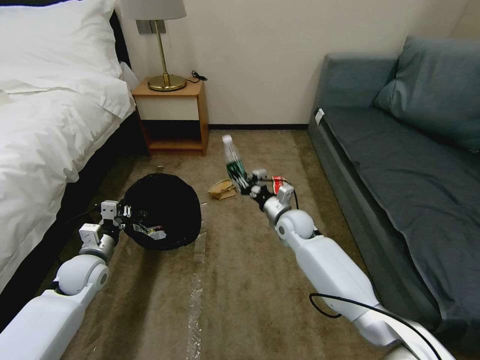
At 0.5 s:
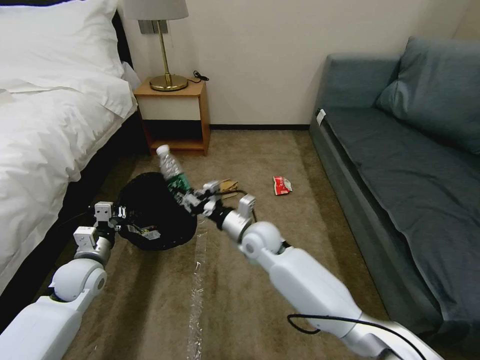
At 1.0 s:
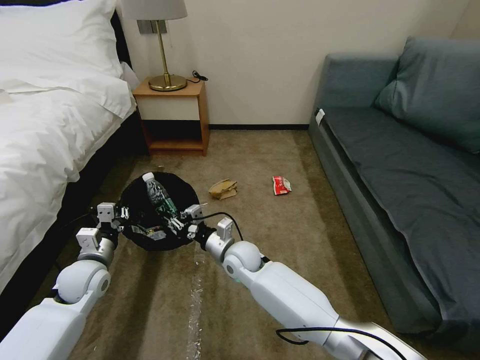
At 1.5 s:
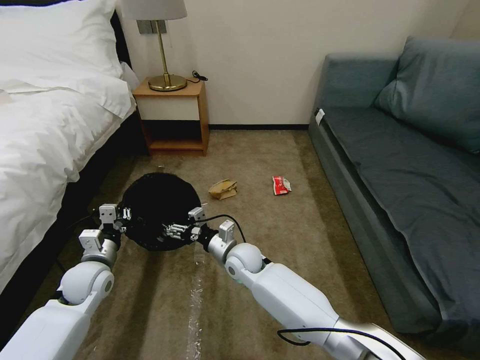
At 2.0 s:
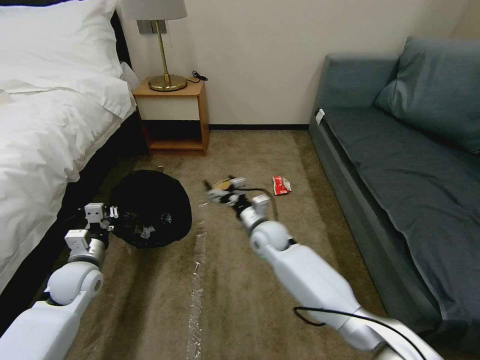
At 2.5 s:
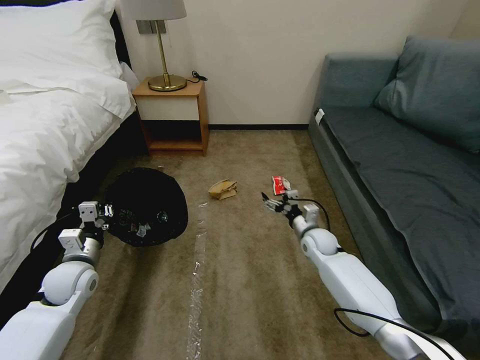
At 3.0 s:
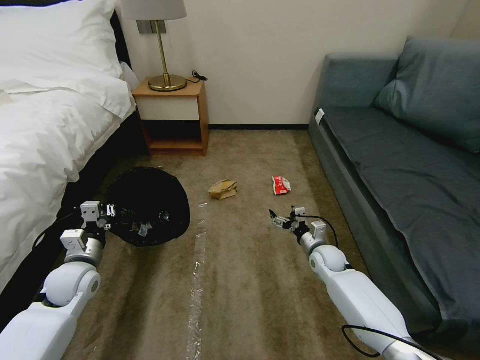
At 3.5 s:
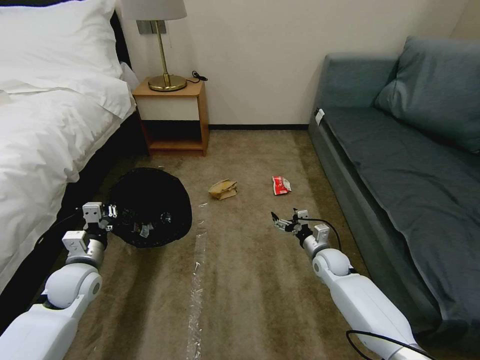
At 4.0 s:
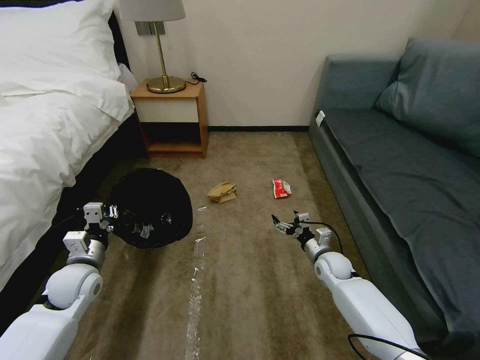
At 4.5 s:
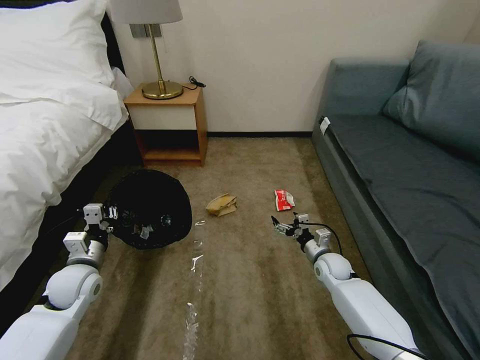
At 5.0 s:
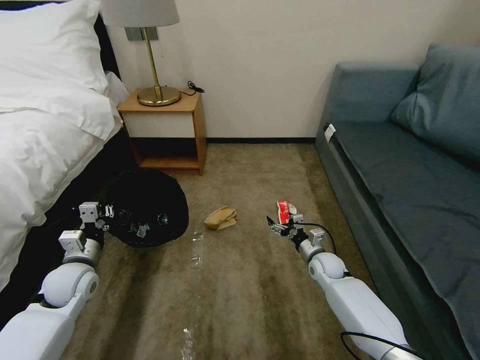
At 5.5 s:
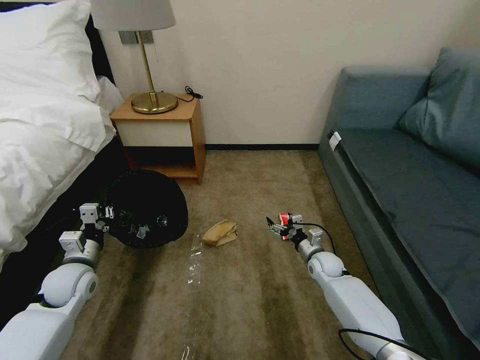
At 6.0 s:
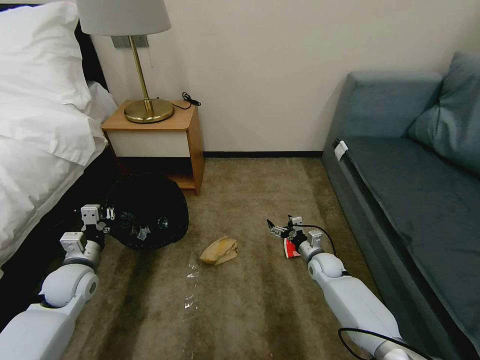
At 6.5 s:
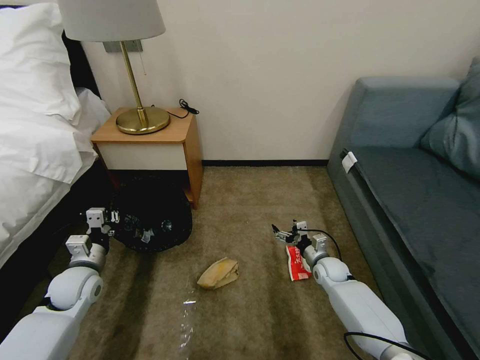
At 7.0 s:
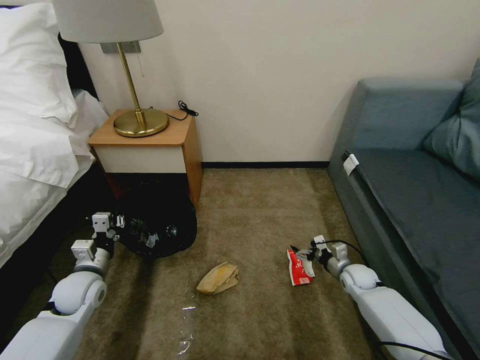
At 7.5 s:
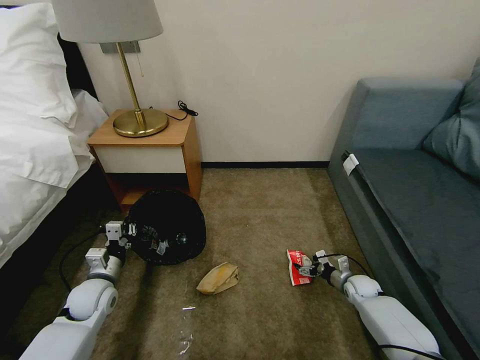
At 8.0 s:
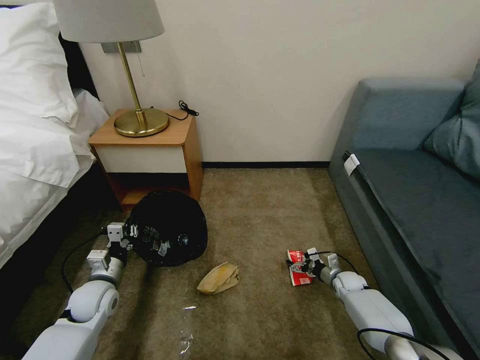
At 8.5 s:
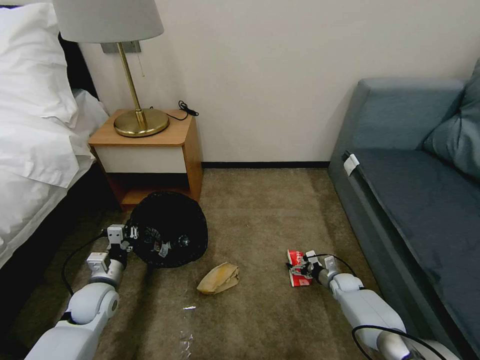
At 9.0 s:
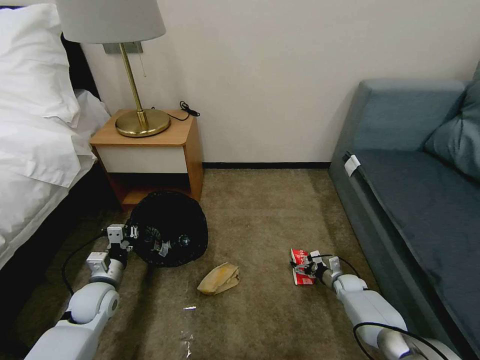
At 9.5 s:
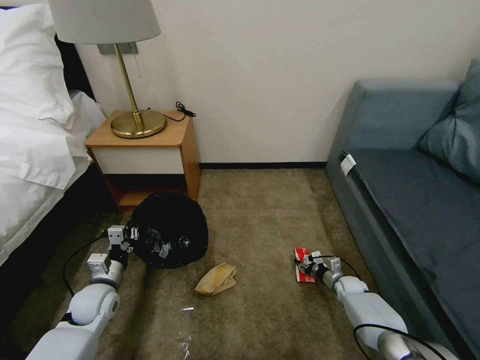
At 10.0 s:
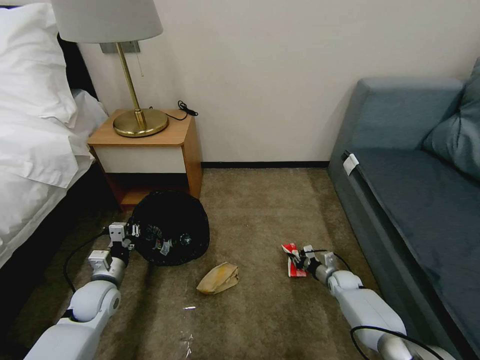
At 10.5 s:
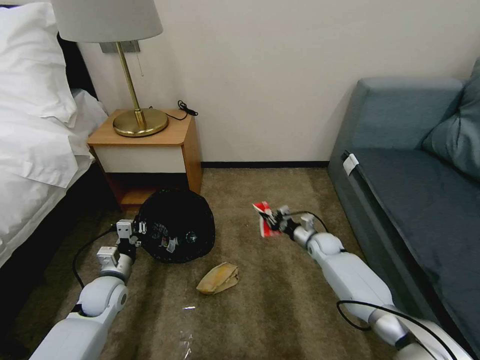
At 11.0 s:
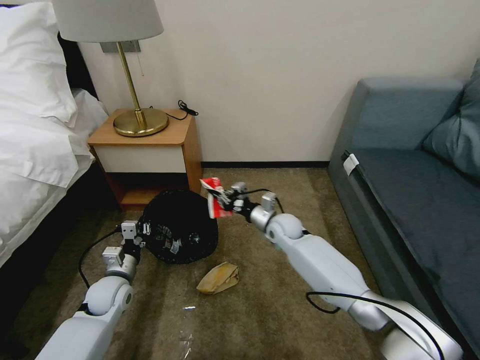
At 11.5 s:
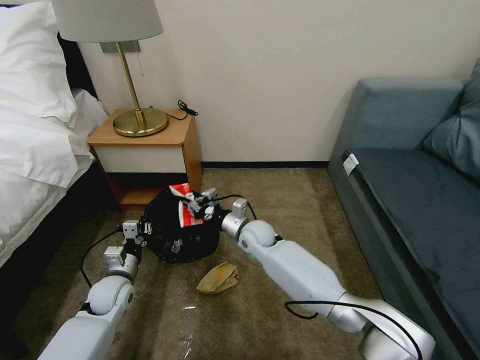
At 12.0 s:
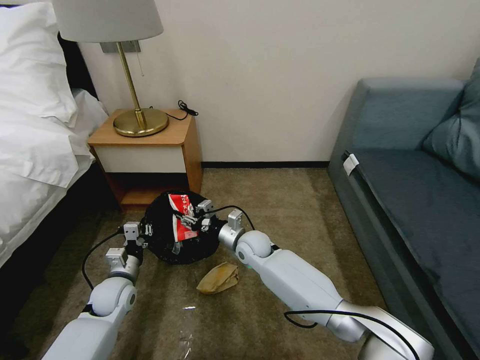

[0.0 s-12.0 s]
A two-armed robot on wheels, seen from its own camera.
Task of the whole recording: Pick up the trash bin, then pick up the garbage on the floor and place it into the trash bin.
0.0 to 2.0 s: The right gripper is displaced to the left by roughly 10 cm, and opens its fingers.
2.0 to 4.0 s: The right gripper shifts approximately 25 cm to the right and downward.
6.0 to 8.0 s: The left gripper moves downward, roughly 5 cm. Meanwhile the right gripper heads to the right and downward, covering roughly 10 cm.
8.0 to 10.0 s: The right gripper closes up.
10.0 to 12.0 s: The right gripper is displaced to the left and upward by approximately 35 cm.

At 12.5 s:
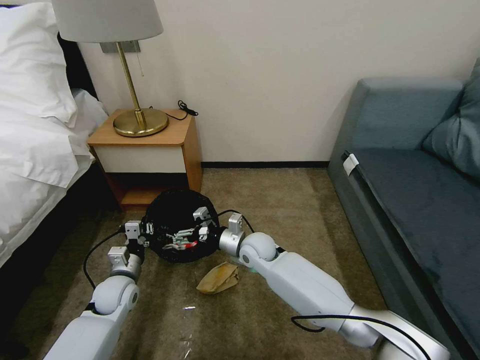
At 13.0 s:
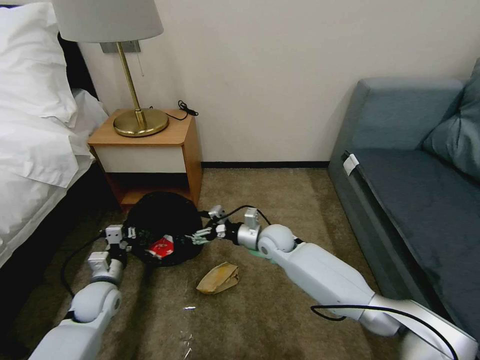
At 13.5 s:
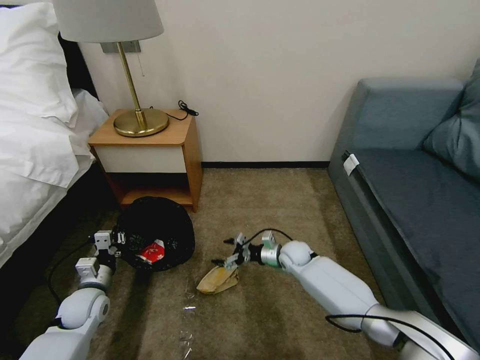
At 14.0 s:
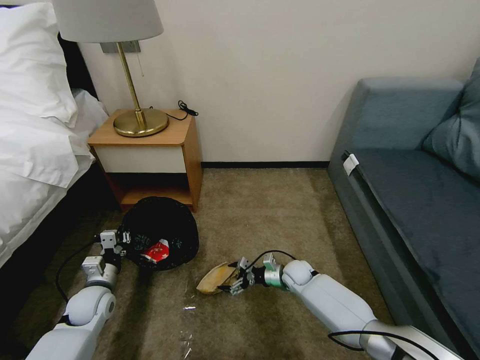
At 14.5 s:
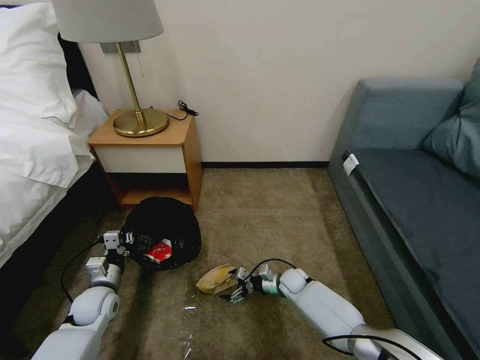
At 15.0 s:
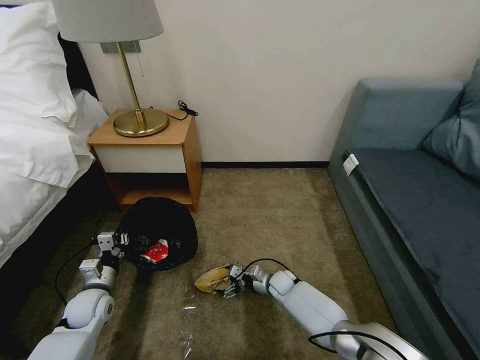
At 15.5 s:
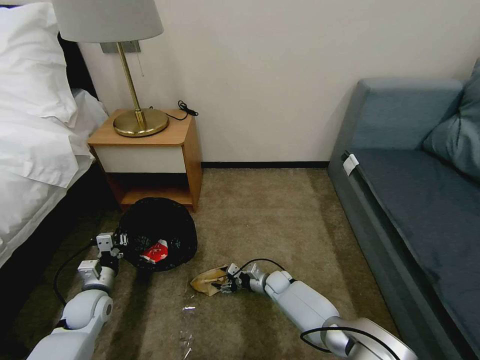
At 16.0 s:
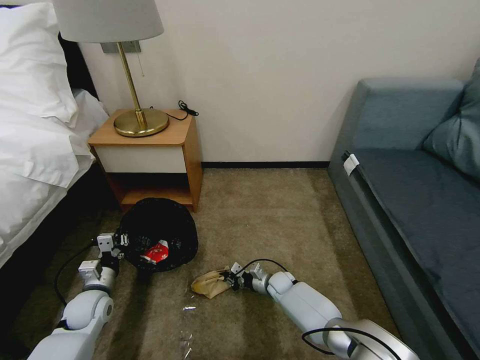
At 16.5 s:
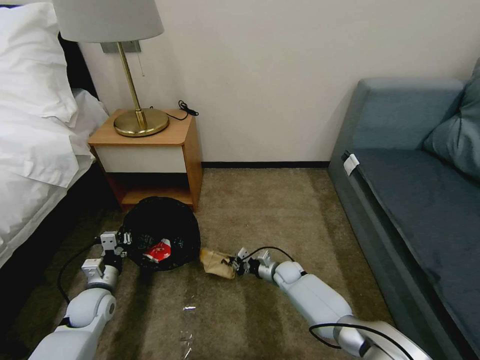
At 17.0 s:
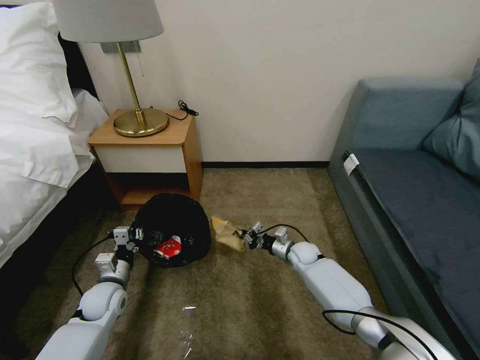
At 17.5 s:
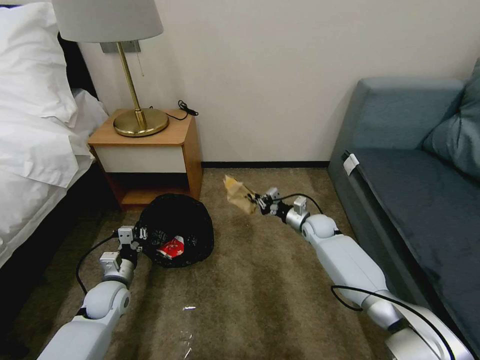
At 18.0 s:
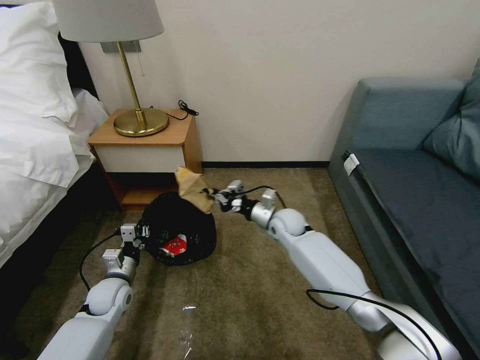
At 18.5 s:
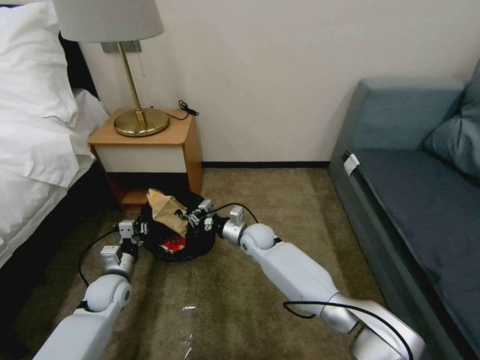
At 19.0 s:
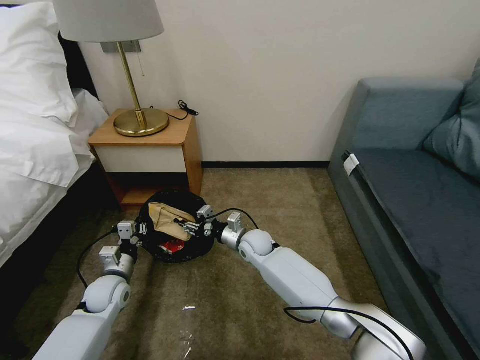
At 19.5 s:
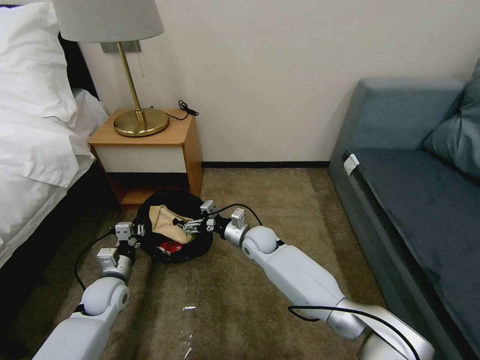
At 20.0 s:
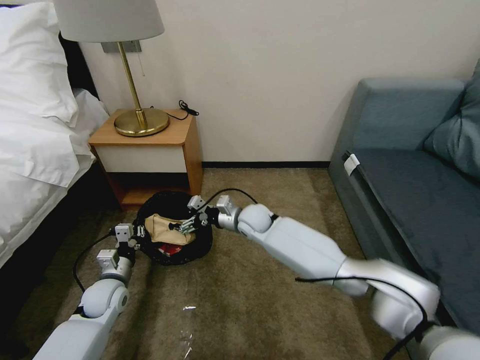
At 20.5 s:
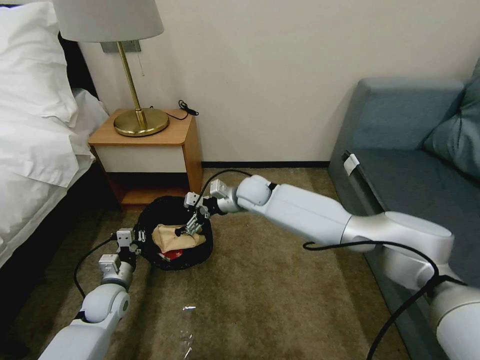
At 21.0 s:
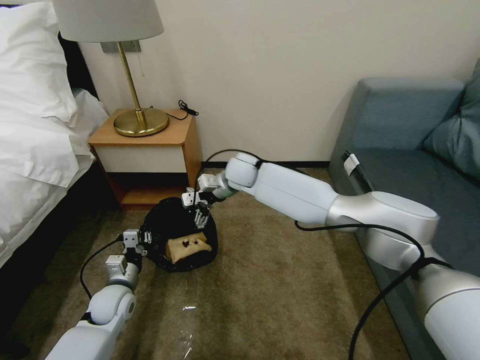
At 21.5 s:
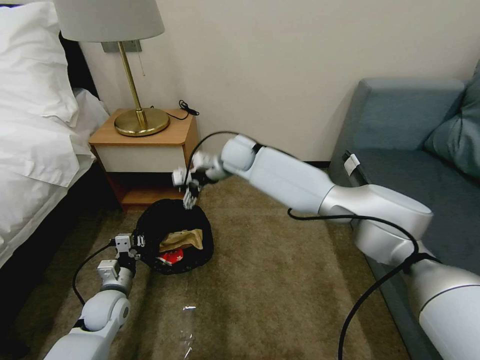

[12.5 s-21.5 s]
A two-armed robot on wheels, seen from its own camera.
Task of the whole recording: Pick up the trash bin, then pick up the garbage on the floor and place it into the trash bin.
12.5 to 14.5 s: The left gripper heads to the left, covering approximately 5 cm; the right gripper goes approximately 25 cm downward and to the right.
14.5 to 17.0 s: The right gripper goes some 10 cm upward and forward, and closes its fingers.
17.0 to 19.5 s: The right gripper travels to the left and upward by roughly 20 cm, and opens up.
19.5 to 21.5 s: The right gripper heads upward and forward, covering some 25 cm.

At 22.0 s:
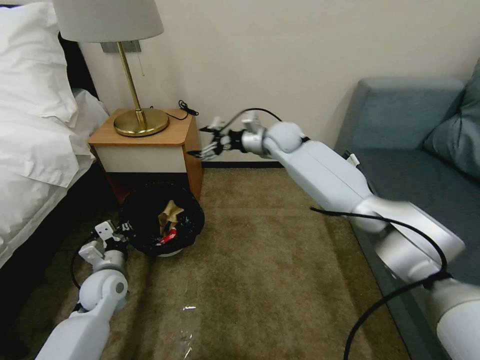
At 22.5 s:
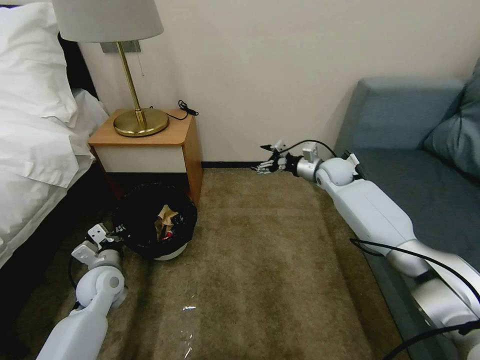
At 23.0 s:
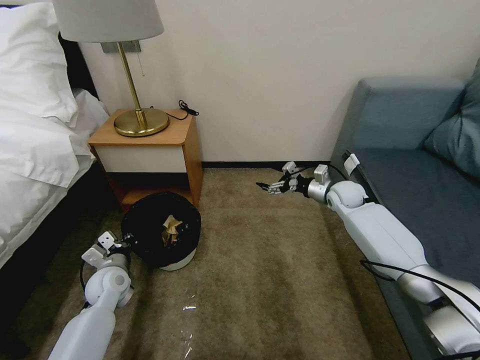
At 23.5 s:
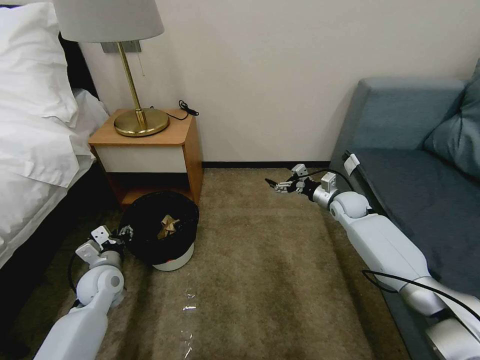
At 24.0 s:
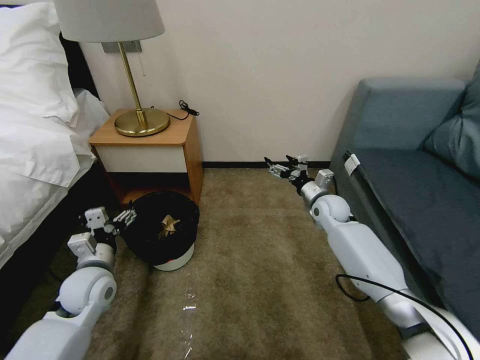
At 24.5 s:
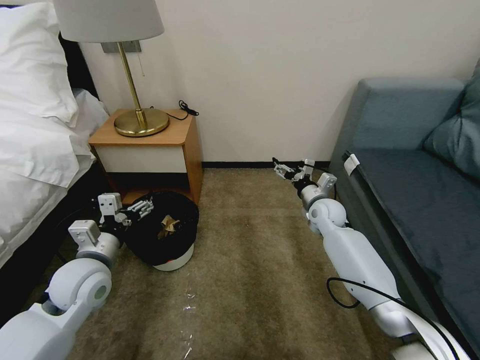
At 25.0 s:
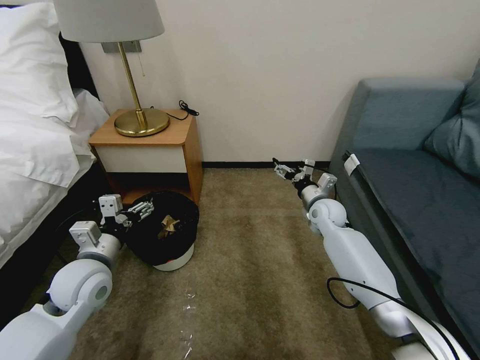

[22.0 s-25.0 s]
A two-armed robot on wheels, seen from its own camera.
Task of the whole recording: Pick up the trash bin, then pick up the garbage on the floor and place it into the trash bin.
22.0 to 23.5 s: The right gripper shifts some 25 cm to the right and downward. The left gripper opens.
23.5 to 25.0 s: The right gripper travels to the left by roughly 5 cm. The left gripper travels upward by some 10 cm, and opens.

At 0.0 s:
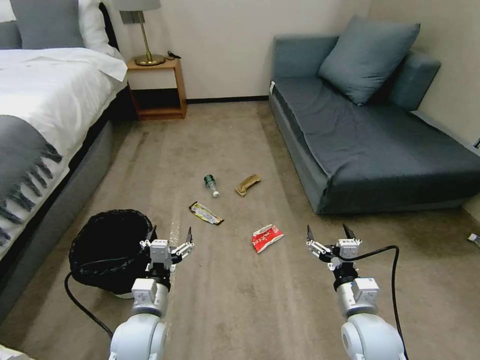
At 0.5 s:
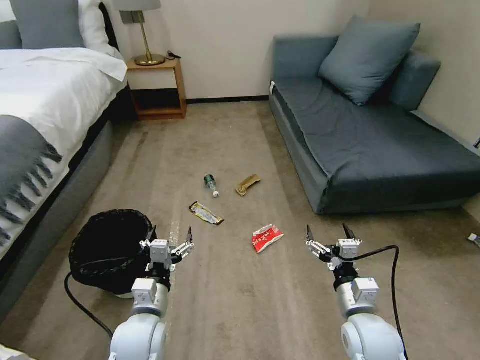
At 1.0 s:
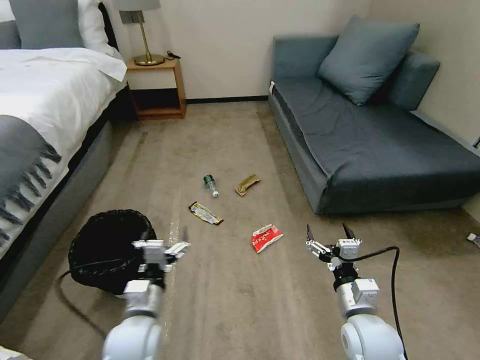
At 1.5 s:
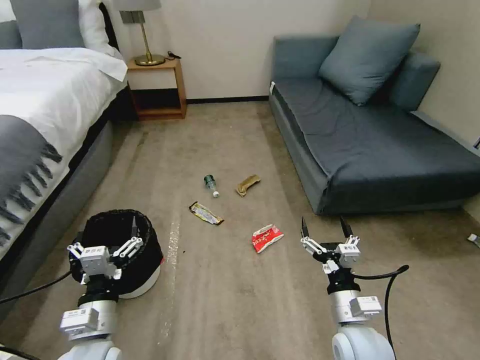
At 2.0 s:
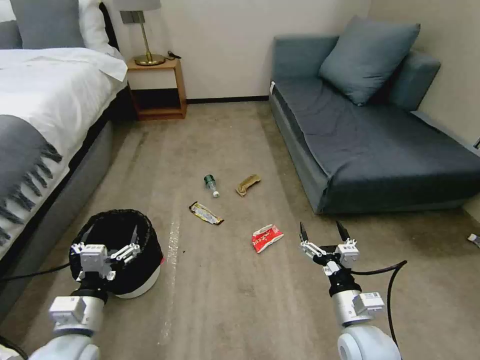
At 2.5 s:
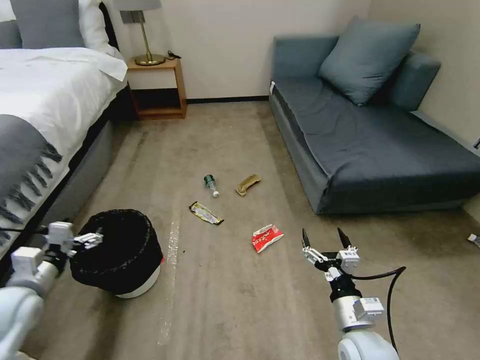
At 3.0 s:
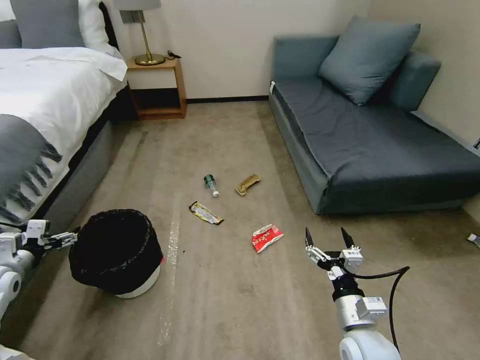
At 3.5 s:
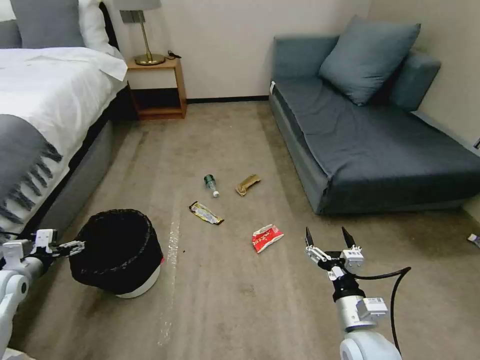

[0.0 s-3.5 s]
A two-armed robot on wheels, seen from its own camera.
Task of the whole recording: Pick up the trash bin, then pick up the garbage on the floor and place it into the trash bin.
2.0 to 3.5 s: The left gripper goes approximately 25 cm to the left and forward.
